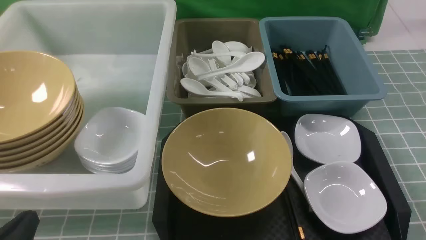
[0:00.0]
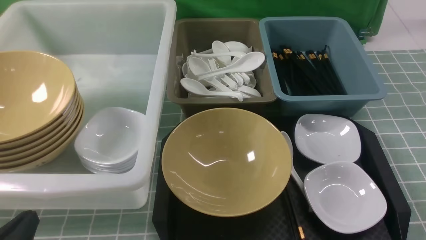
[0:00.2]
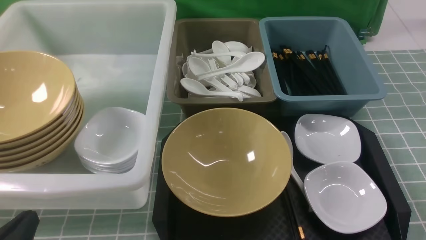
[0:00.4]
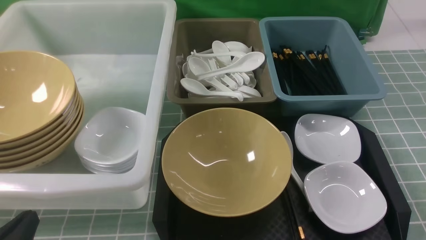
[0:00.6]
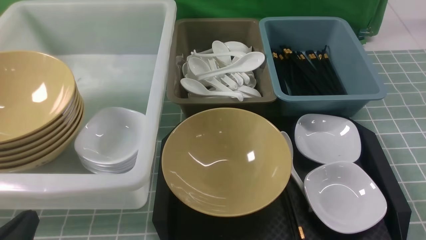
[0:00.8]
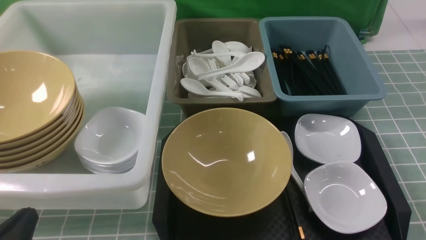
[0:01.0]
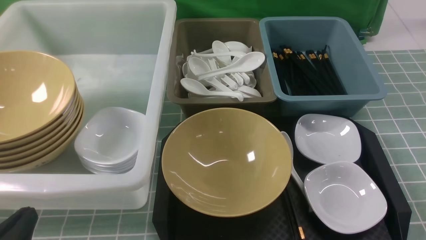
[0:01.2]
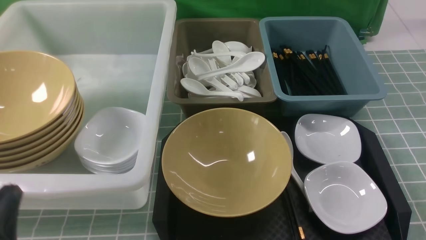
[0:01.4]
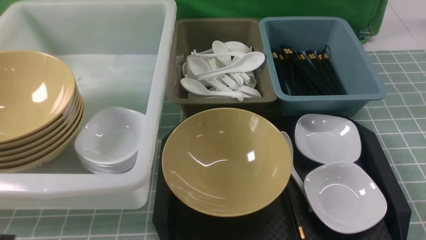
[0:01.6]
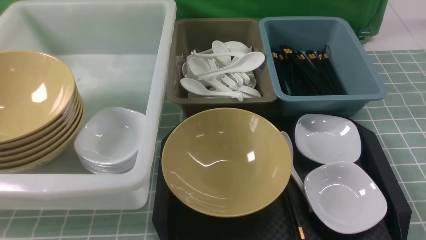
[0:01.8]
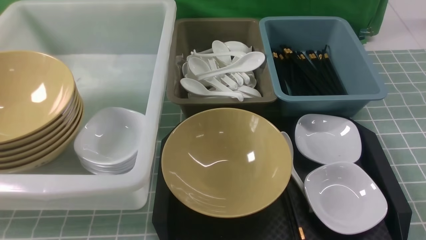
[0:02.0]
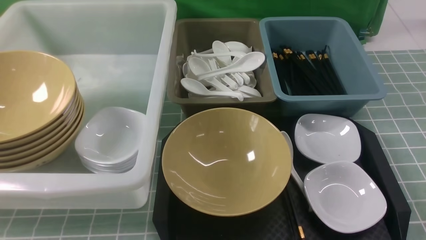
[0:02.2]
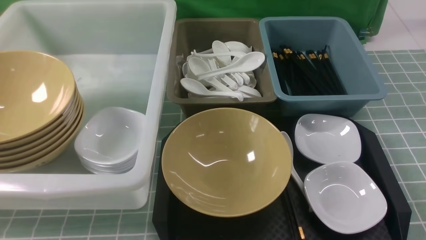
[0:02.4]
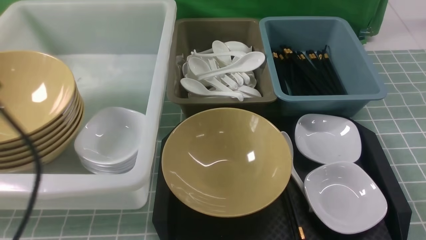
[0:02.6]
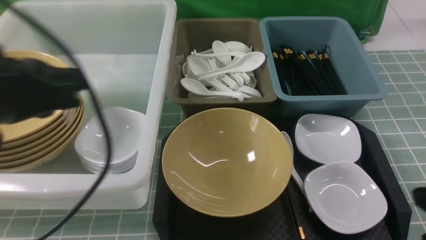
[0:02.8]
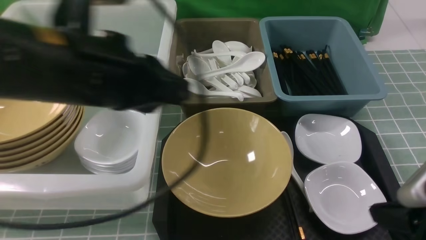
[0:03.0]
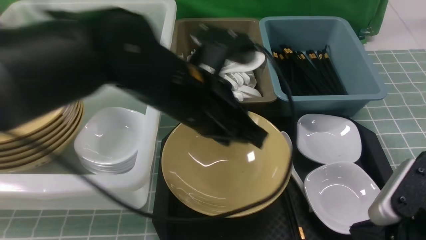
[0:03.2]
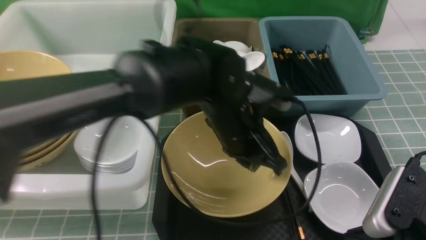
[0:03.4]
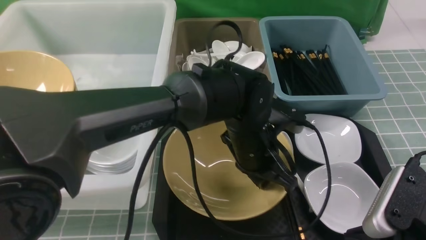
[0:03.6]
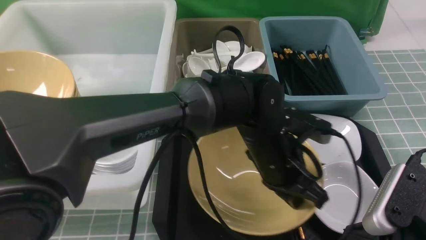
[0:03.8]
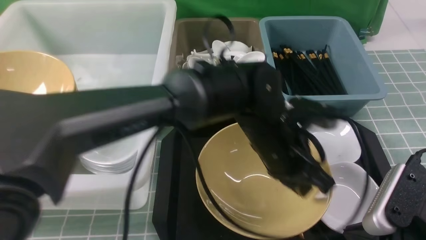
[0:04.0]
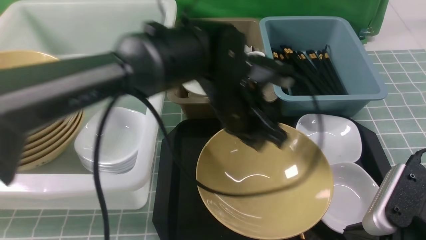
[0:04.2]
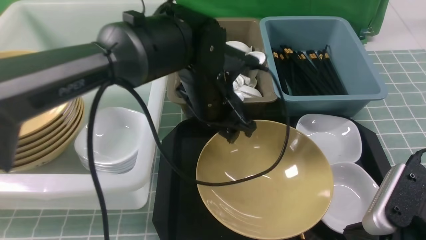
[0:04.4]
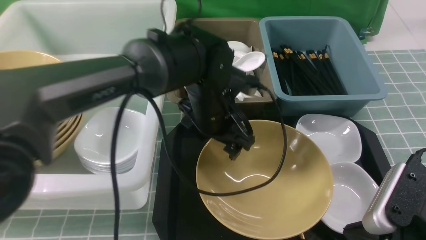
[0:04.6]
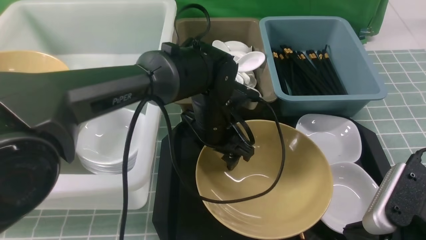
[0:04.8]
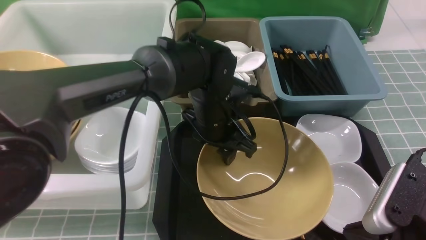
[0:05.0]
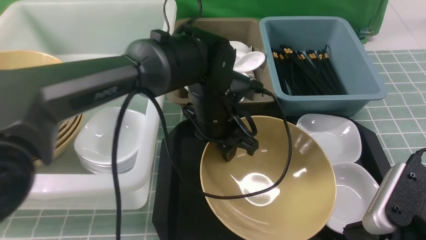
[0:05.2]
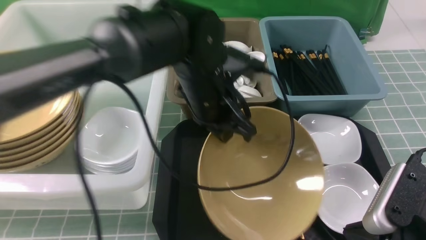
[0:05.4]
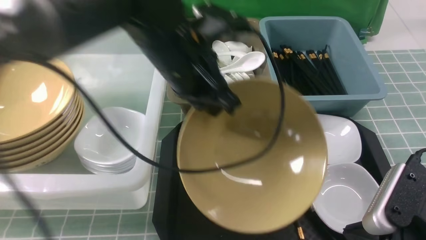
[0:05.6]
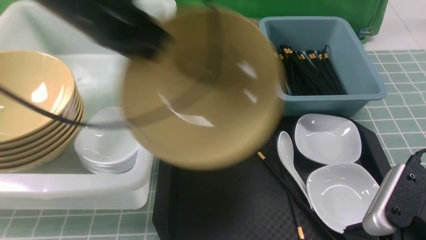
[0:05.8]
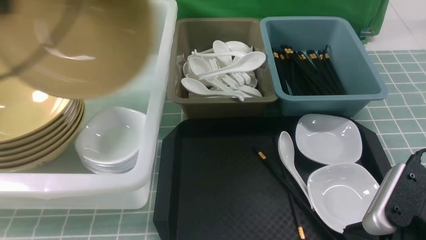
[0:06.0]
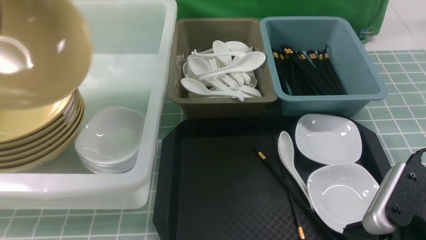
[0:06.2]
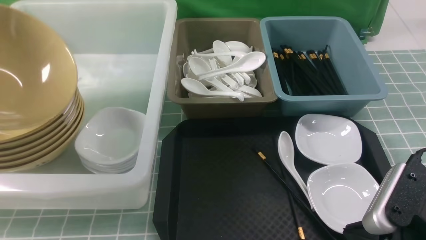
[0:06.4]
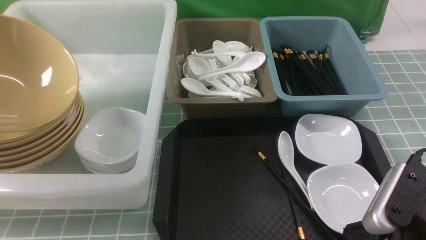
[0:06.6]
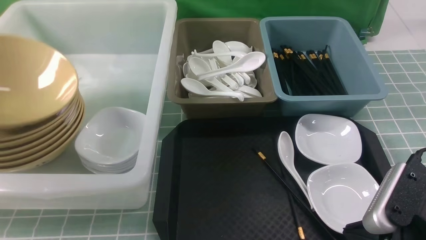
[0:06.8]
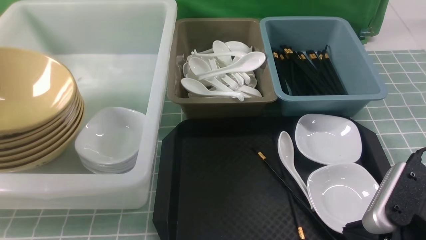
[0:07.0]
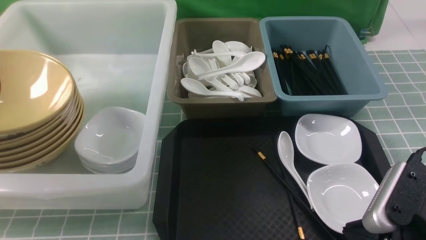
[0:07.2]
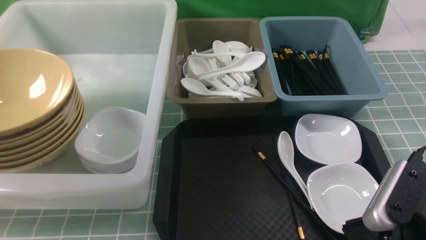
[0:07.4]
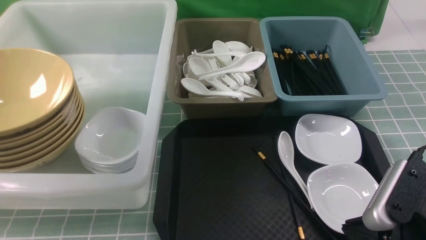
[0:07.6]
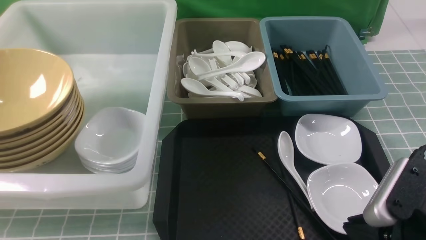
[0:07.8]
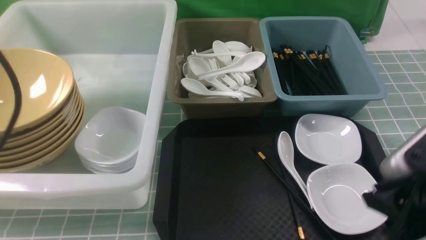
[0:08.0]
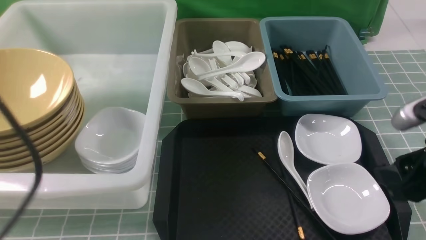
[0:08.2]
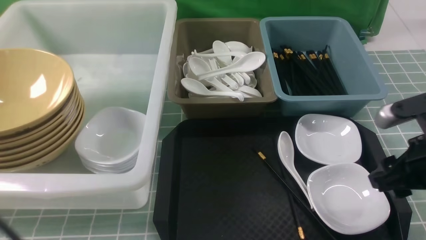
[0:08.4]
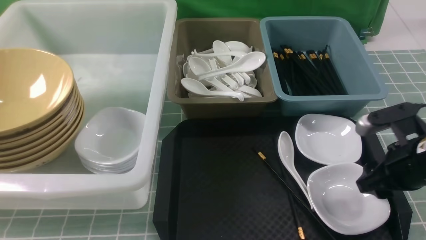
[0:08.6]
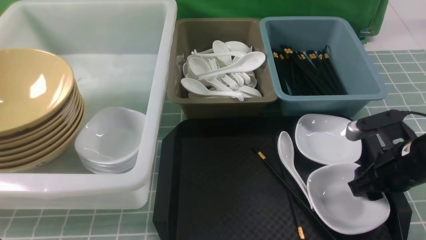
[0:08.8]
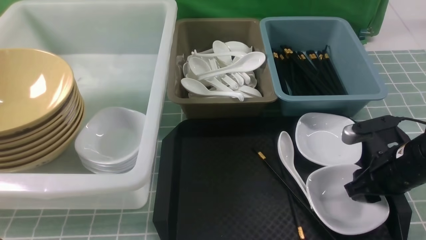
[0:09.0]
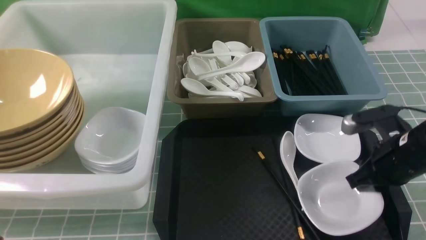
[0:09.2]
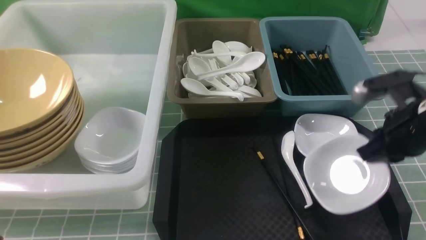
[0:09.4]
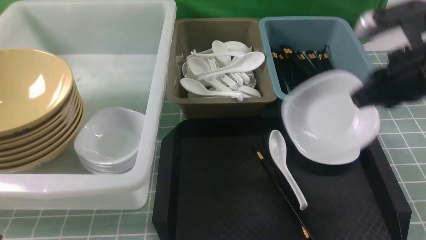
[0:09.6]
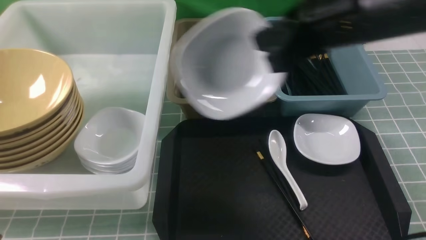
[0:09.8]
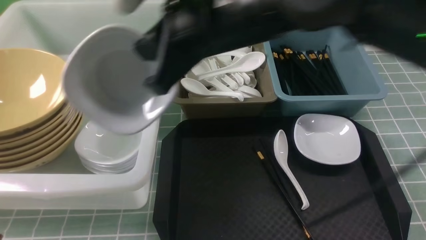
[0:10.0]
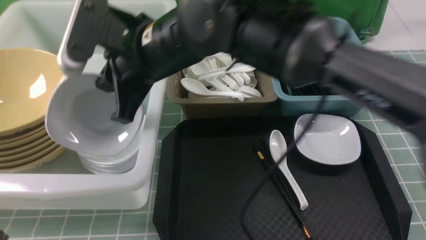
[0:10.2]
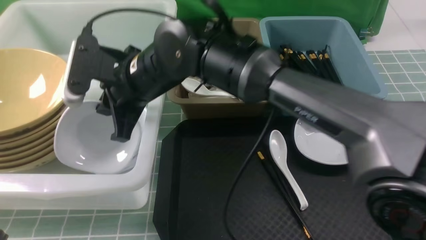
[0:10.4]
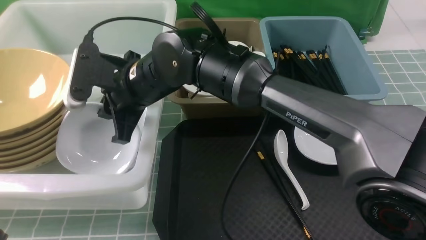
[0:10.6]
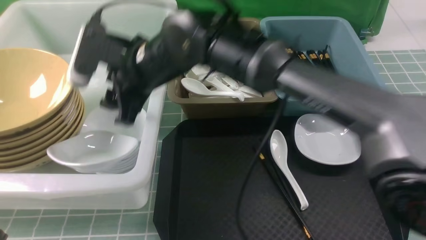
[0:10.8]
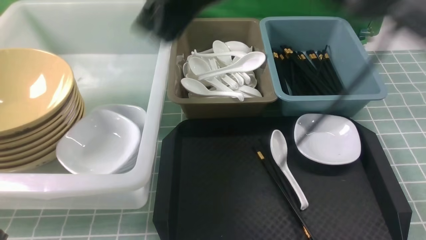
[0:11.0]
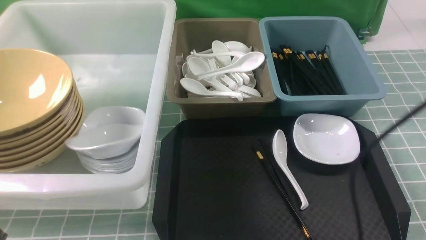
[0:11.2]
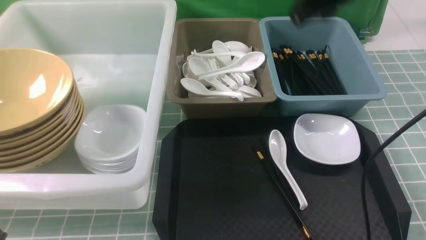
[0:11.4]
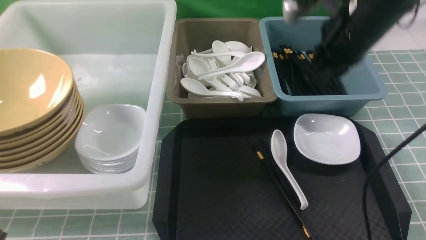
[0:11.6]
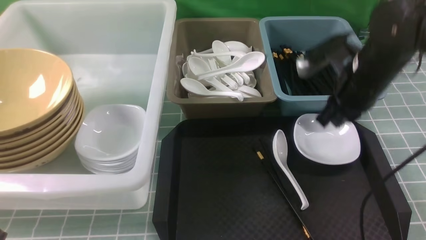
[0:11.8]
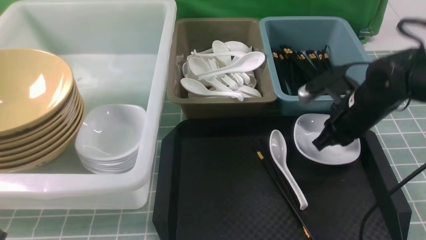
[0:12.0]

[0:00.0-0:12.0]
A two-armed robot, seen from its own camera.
Task of the whole recording: on blue table put chopsticks spoon bowls plates into blue grey white boxes.
Step, 0:00.0 to 0:05.4: use the left arm to grab the yellow noodle bowl on the left.
Step, 0:05.6 to 0:07.6: use the left arm to put the noodle bowl into the large storage box on the left.
Step, 0:07.8 to 0:09.2: use the right arm to grab the plate.
Step, 0:09.4 to 0:11.0: use the right arm to put the plate into the large storage box on the left.
0:00.0 to 0:01.6: The left gripper shifts about 5 cm upward.
0:01.6 to 0:03.0: The left gripper heads forward, to the right and upward, covering about 25 cm; the right gripper goes roughly 10 cm forward and to the left.
0:03.0 to 0:04.4: The left gripper moves downward, forward and to the right, some 20 cm, and opens up.
0:04.4 to 0:06.0: The left gripper is displaced to the left and upward by roughly 35 cm, and closes.
0:06.0 to 0:07.6: The left gripper travels backward and to the left by roughly 10 cm, and opens up.
0:07.6 to 0:09.0: The left gripper is displaced backward, downward and to the right by roughly 20 cm, and closes, while the right gripper heads forward, covering roughly 15 cm, and opens up.
0:09.0 to 0:10.4: The right gripper shifts roughly 35 cm to the left, and closes its fingers.
0:10.4 to 0:12.0: The right gripper heads to the right, covering approximately 30 cm, and opens, then closes again.

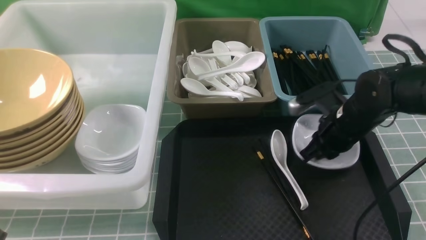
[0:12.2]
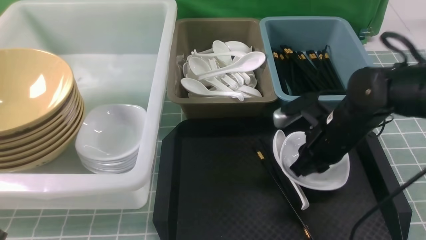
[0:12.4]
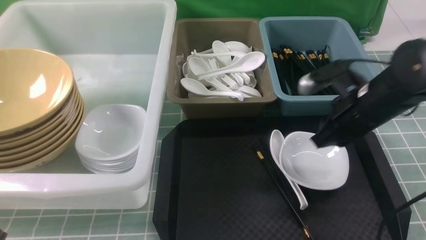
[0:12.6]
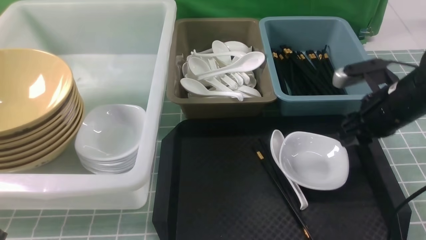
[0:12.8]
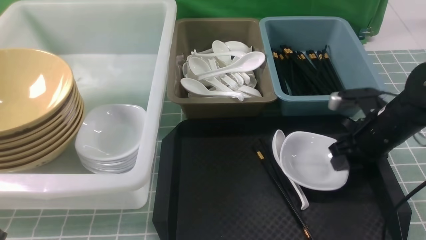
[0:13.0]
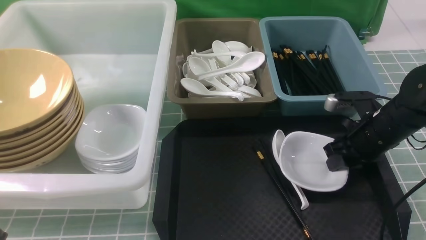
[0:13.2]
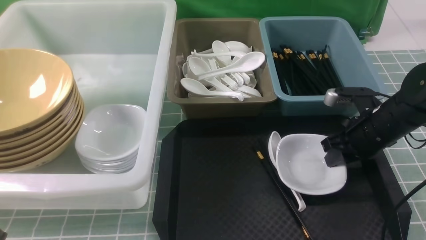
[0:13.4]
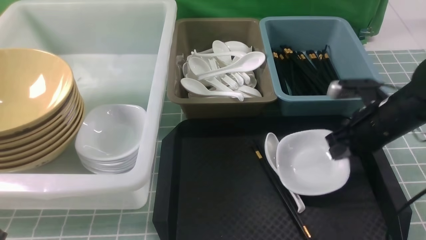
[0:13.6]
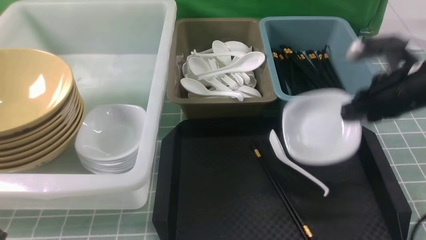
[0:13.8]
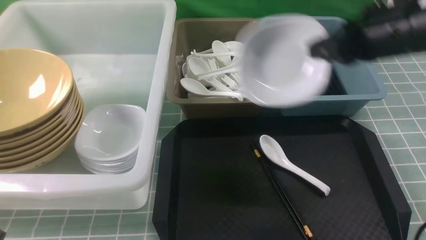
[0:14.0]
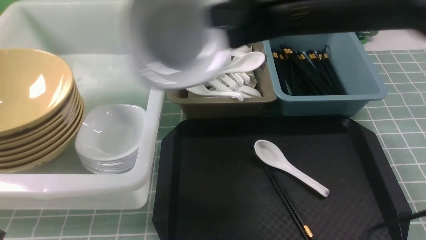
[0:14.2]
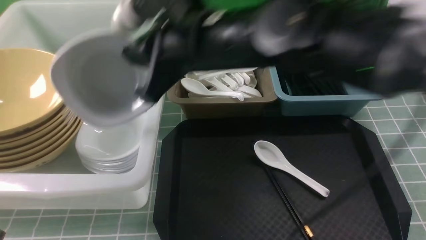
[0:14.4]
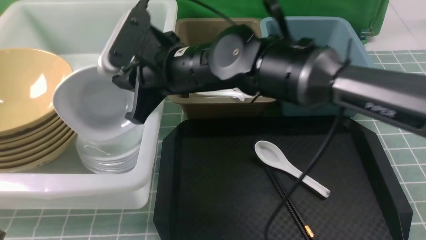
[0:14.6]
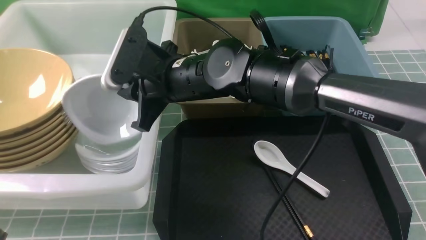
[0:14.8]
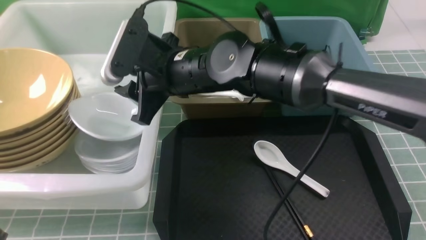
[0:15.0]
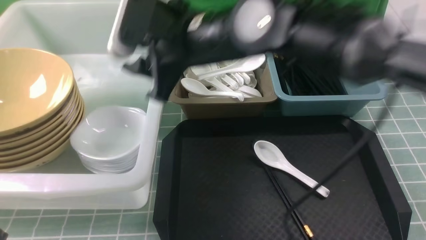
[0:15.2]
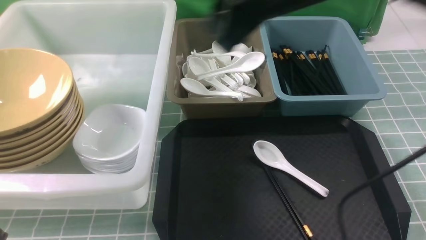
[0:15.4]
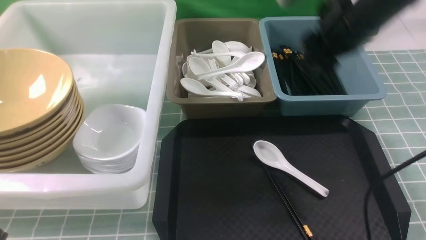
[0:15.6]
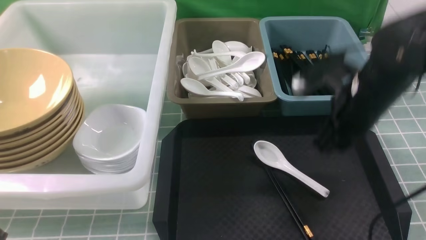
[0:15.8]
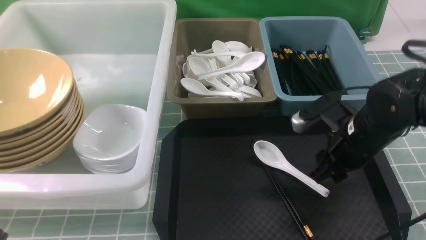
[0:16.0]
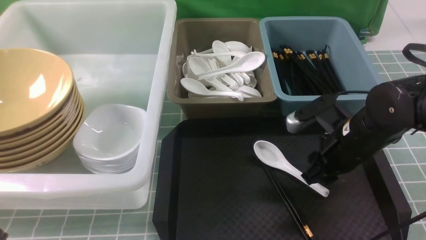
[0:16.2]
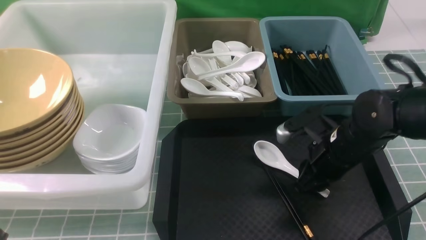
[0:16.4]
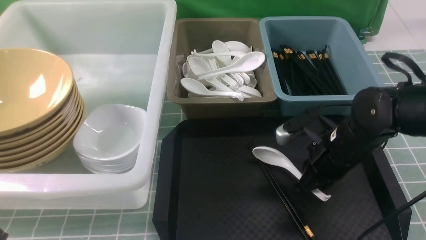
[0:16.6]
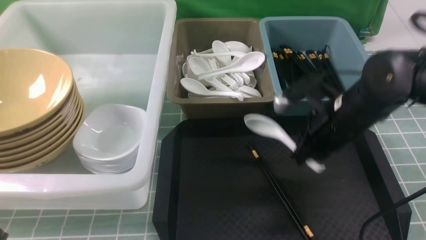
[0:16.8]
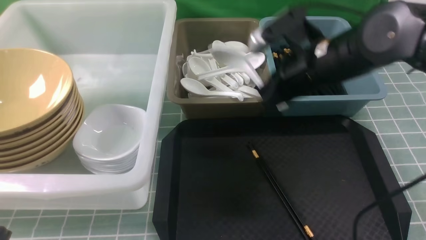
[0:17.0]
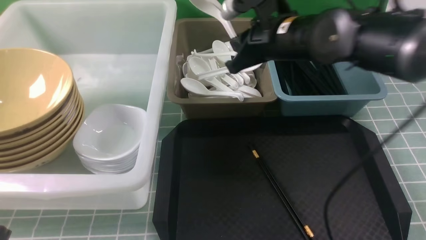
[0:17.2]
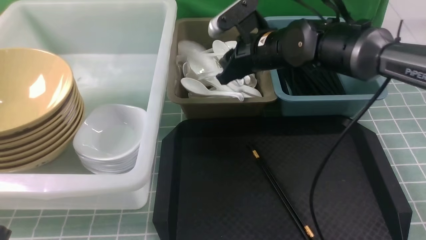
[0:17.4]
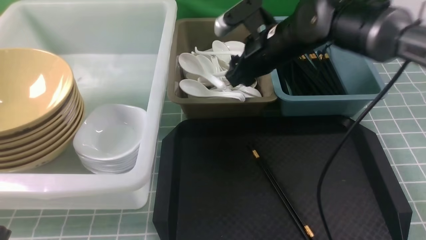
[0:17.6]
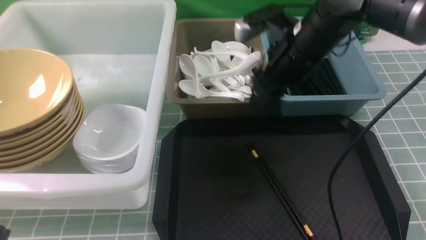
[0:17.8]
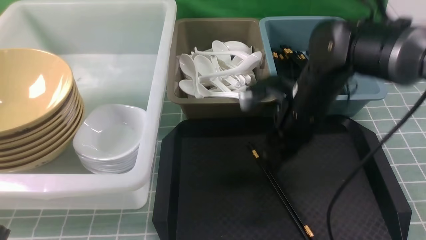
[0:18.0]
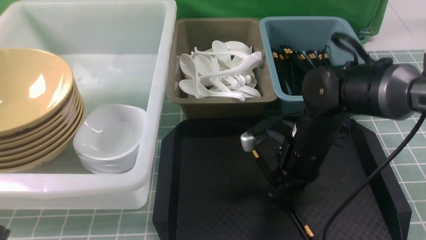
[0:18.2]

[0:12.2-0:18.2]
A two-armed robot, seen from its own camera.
Task of the whole recording: on blue table put chopsticks spoon bowls plates into blue grey white boxes.
Step, 0:12.2 to 0:13.8: use the right arm to grab the plate.
Step, 0:14.0 to 0:15.2: use the right arm to put the plate into the large storage box on the left.
Step, 0:15.4 to 0:16.8: use the right arm to grab the soup spoon in the middle.
Step, 0:17.0 to 0:17.6: use the right arm to put the soup spoon into the small storage box in the middle.
0:12.2 to 0:13.8: The right gripper goes about 10 cm upward, and opens, then closes again.
0:13.8 to 0:15.2: The right gripper shifts about 20 cm to the left, and opens.
0:15.2 to 0:16.6: The right gripper is displaced downward and to the right by roughly 25 cm, and closes its fingers.
0:16.6 to 0:18.2: The right gripper goes forward and returns, about 10 cm each way, and opens.
